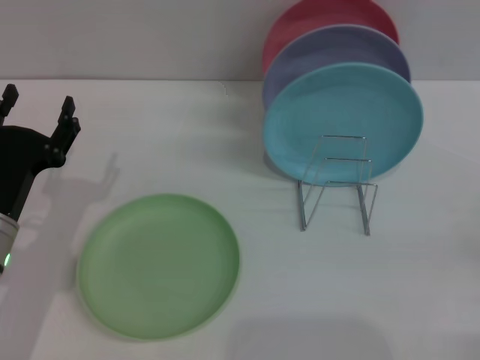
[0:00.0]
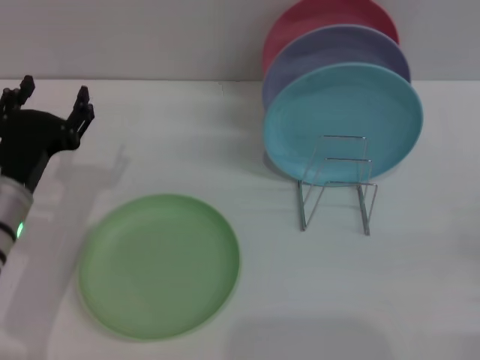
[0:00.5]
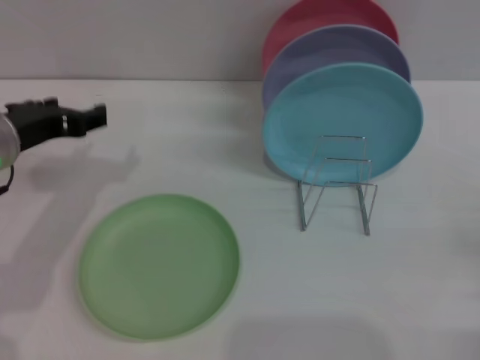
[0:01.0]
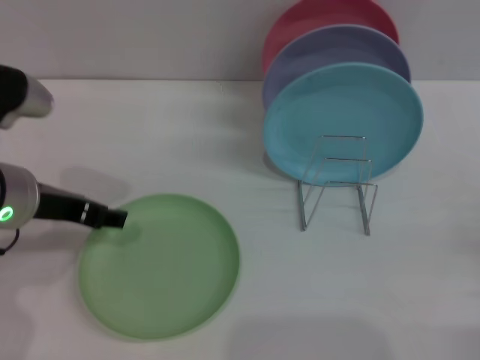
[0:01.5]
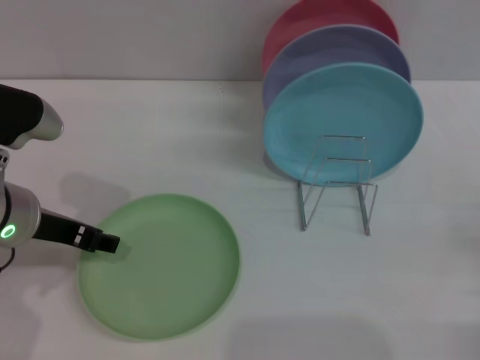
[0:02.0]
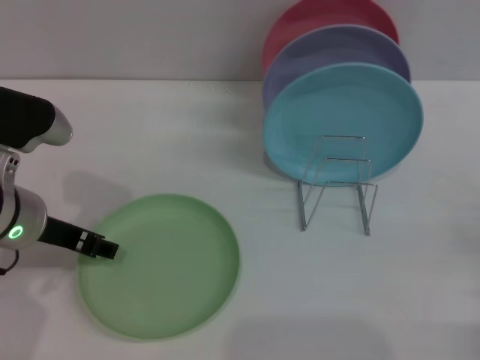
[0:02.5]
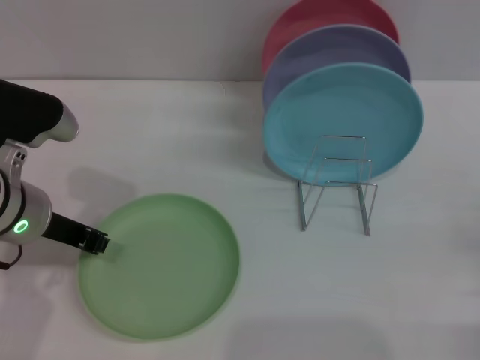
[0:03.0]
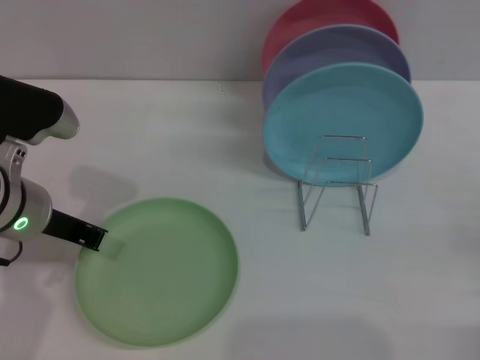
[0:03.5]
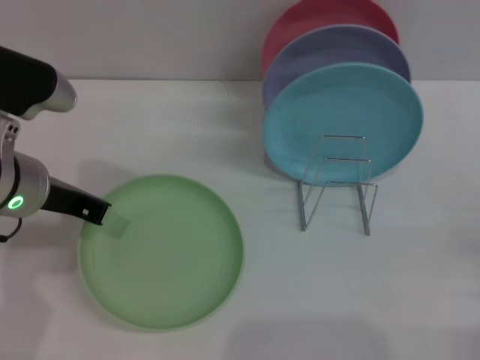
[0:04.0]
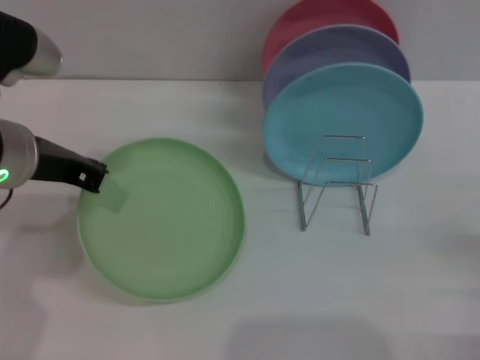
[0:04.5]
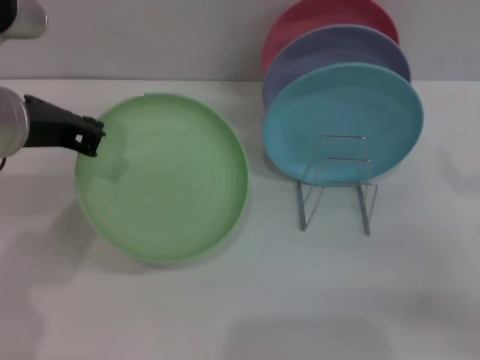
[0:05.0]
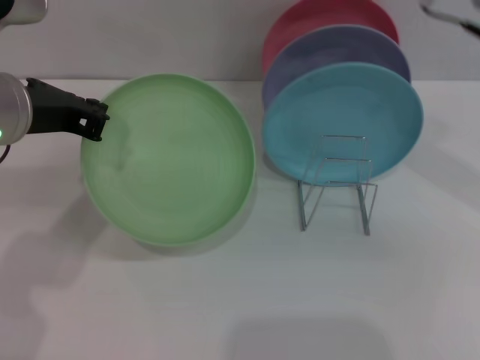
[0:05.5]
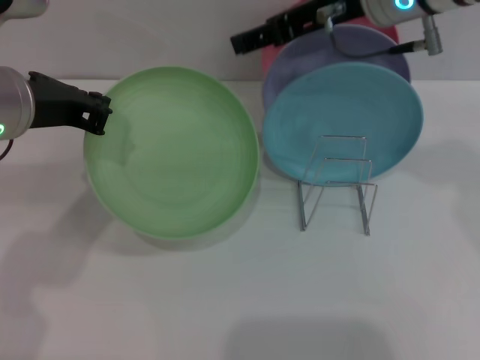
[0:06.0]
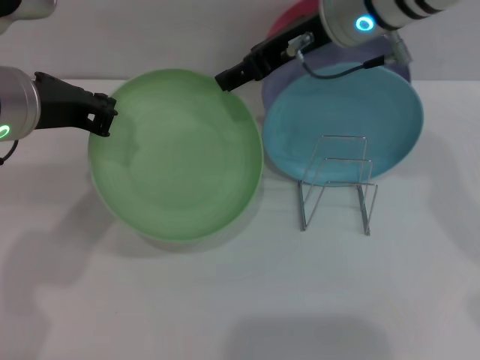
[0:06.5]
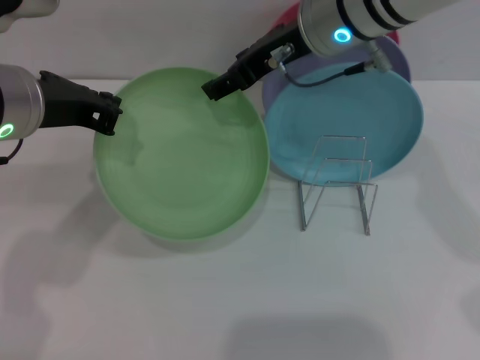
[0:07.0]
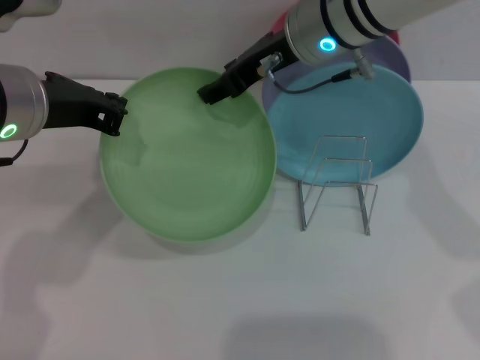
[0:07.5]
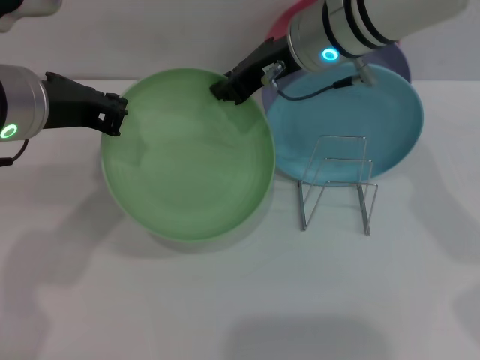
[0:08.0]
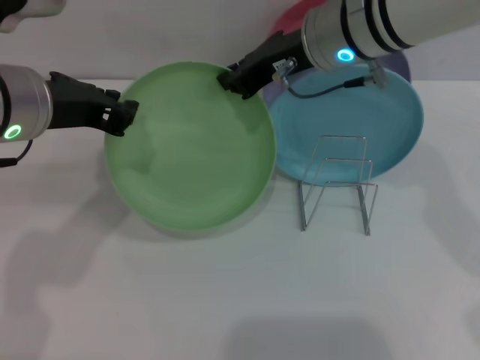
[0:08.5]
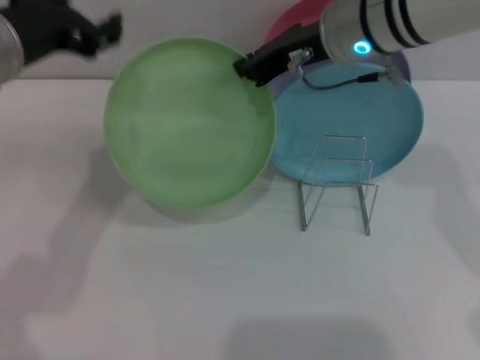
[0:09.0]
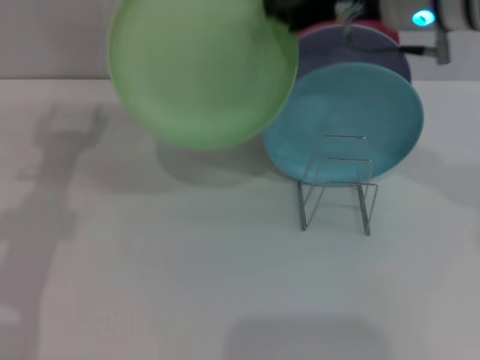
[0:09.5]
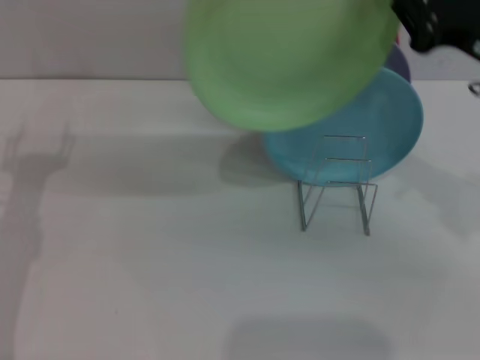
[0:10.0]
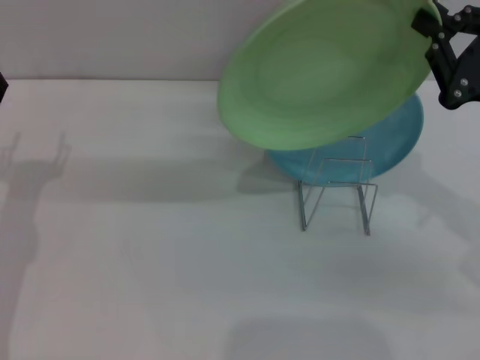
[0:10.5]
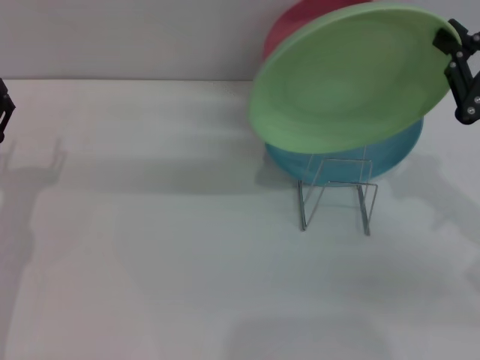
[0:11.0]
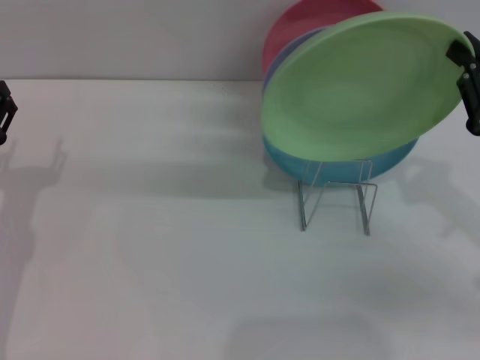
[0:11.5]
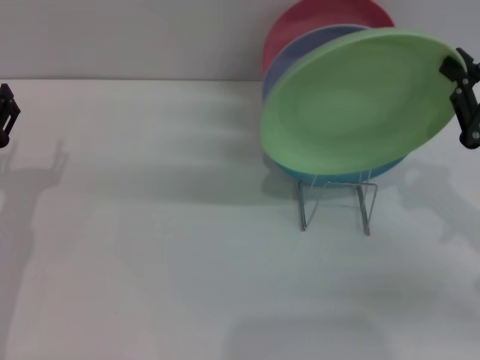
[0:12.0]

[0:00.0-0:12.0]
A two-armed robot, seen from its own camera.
Task of the whole recording: Grip the plate with one hand, pass it to the other, then set it on the shelf.
Step, 0:00.0 to 0:04.5: Pick up the plate with the left gripper.
Step, 0:05.5 to 0:08.5: Pass the plate from the left gripper to the right gripper.
0:00.0 to 0:02.0: The left gripper heads upward, covering approximately 10 cm.
0:02.0 to 0:04.0: The left gripper closes.
0:04.0 to 0:06.0: The right gripper is displaced upward, to the left and forward by roughly 40 cm, while the left gripper moves upward, approximately 5 cm.
0:06.0 to 0:08.0: The right gripper ends up about 5 cm from where it was, and closes.
0:08.0 to 0:10.0: The right gripper shifts about 20 cm to the right and backward, and closes. Meanwhile the left gripper is displaced downward and to the left by some 15 cm, and opens its fingers.
0:10.0 to 0:12.0: The right gripper goes approximately 5 cm downward.

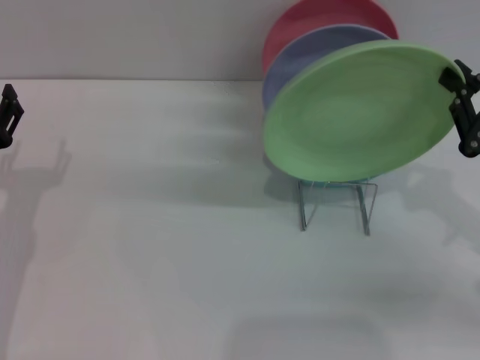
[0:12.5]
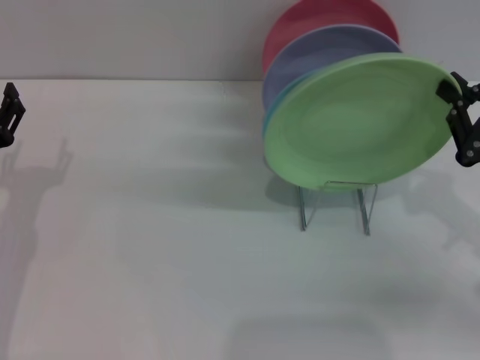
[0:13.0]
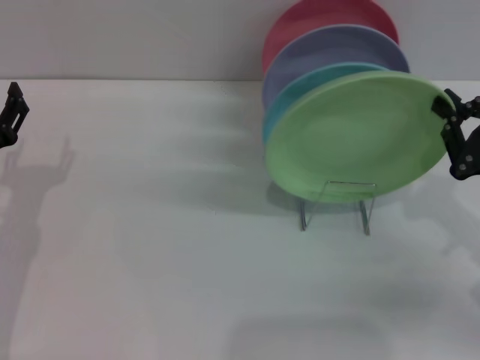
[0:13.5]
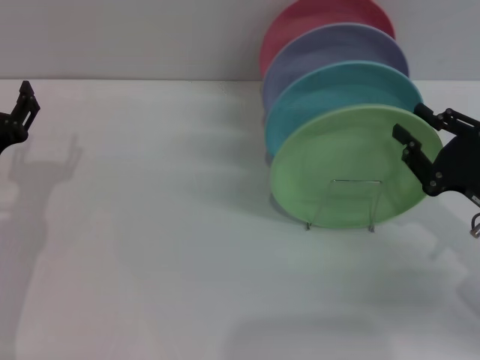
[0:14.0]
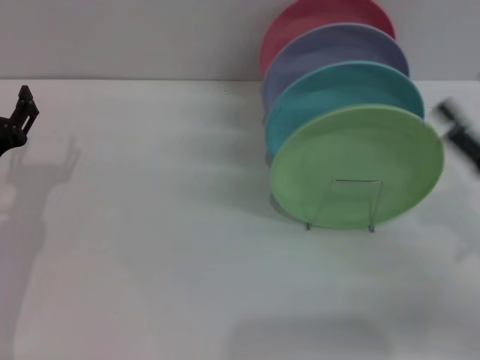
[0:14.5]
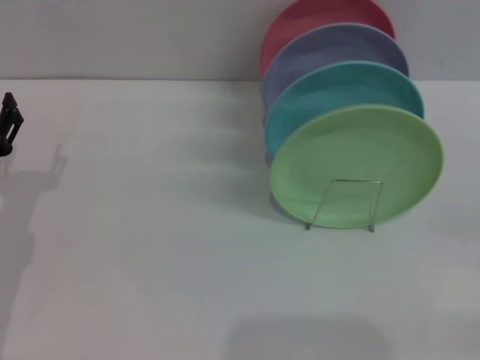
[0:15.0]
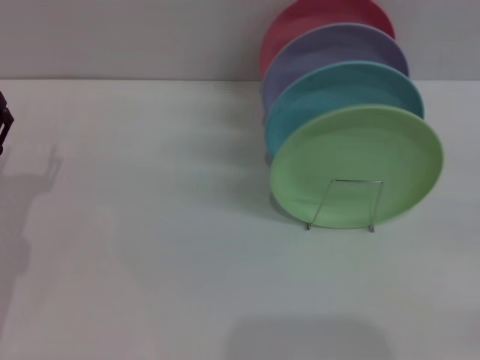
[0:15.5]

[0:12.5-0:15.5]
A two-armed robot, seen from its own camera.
Task of the whole recording: Grip the plate with one hand, pass it to the other, then set it on the shelf.
0:12.5 to 0:14.0: There are only small adjustments of the grippers.
0:14.0 to 0:15.5: The right gripper travels to the right and backward by about 15 cm, and opens up.
